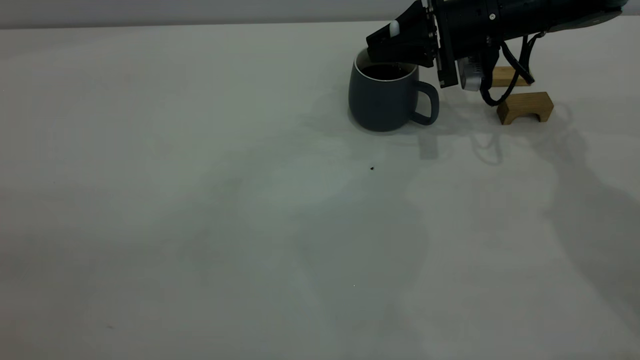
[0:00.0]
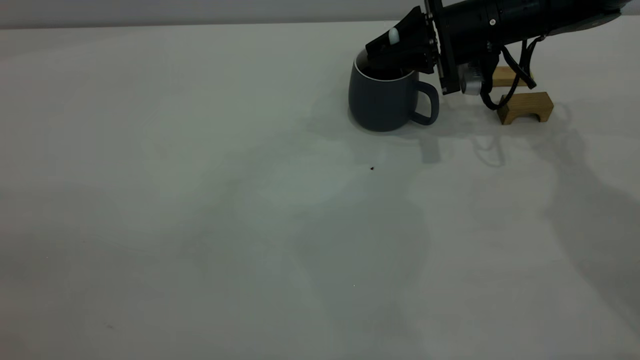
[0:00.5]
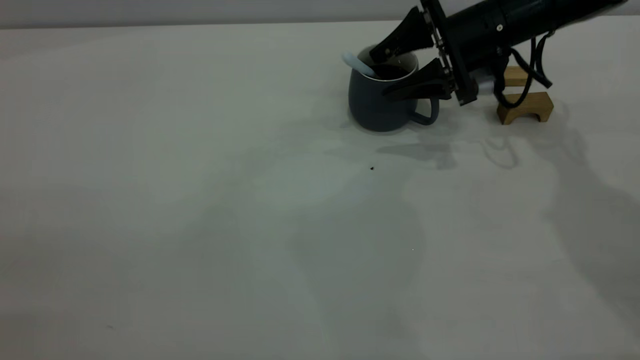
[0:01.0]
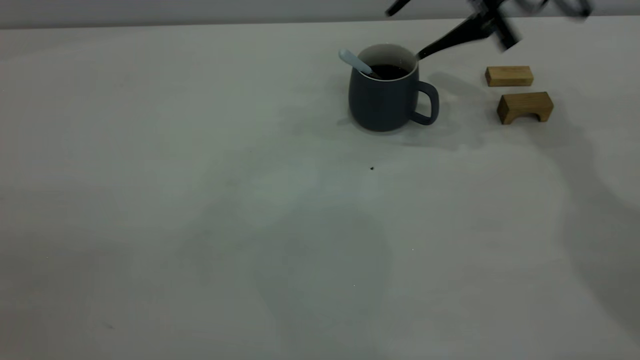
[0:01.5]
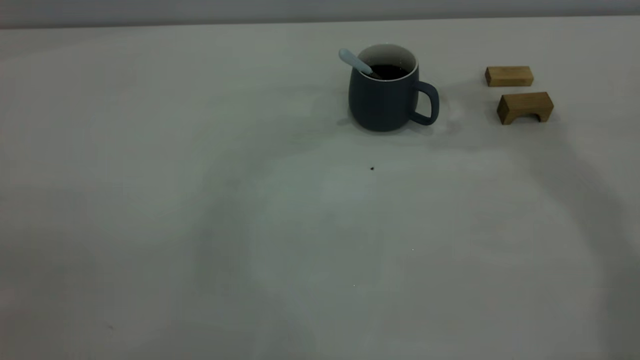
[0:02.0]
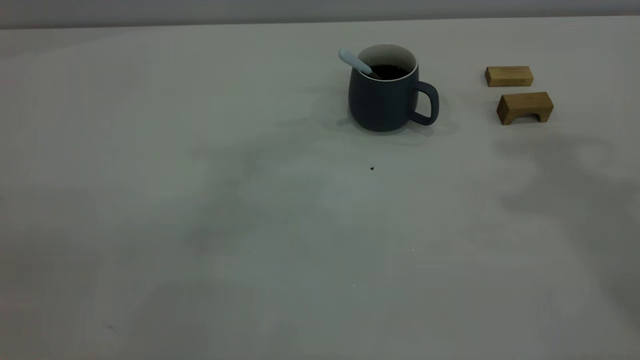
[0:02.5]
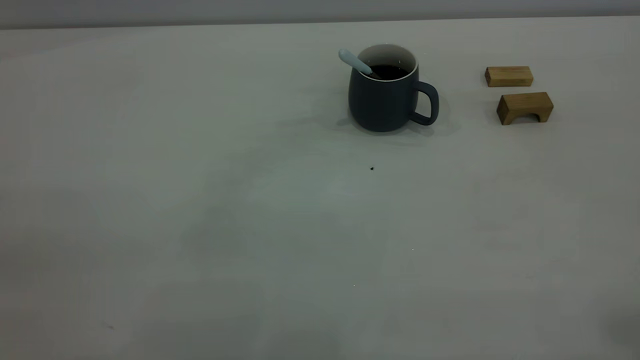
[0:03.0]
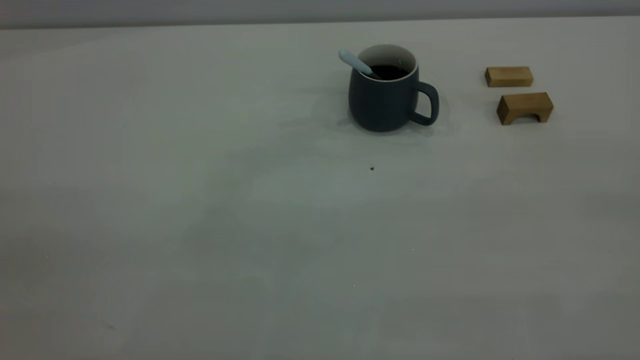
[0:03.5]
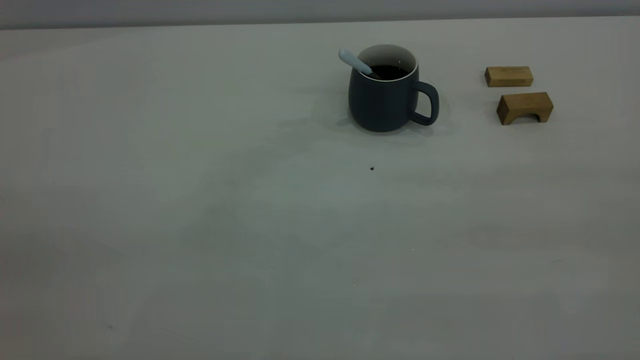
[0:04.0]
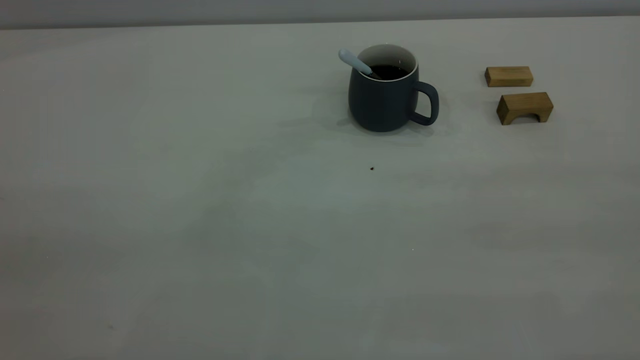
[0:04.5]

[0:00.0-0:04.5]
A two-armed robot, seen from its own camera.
0:00.0 to 0:02.0: The right gripper goes about 30 cm upward, and opens and closes again.
